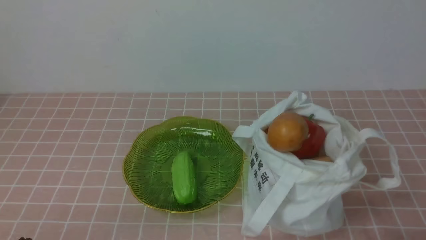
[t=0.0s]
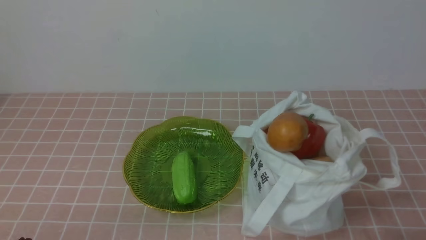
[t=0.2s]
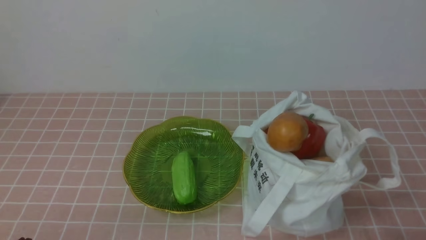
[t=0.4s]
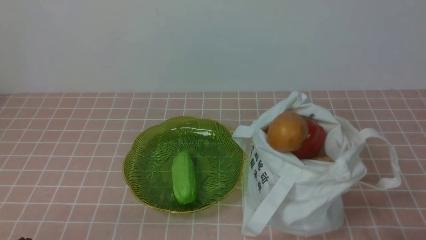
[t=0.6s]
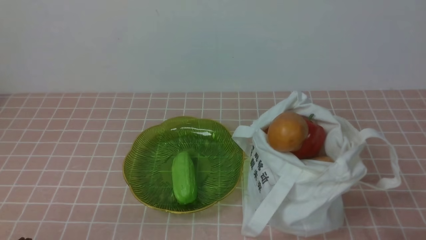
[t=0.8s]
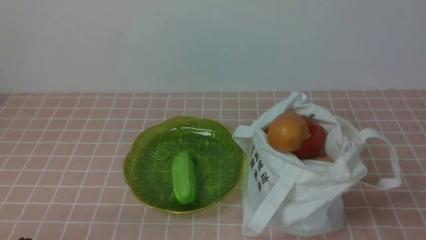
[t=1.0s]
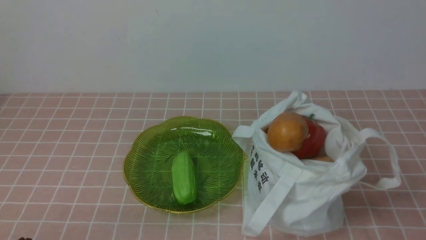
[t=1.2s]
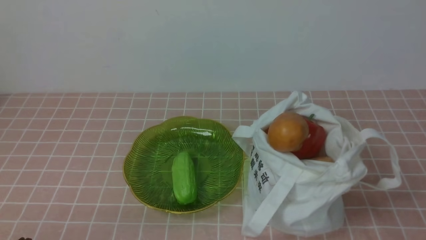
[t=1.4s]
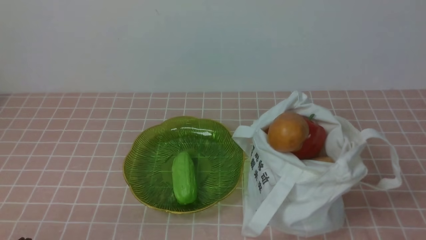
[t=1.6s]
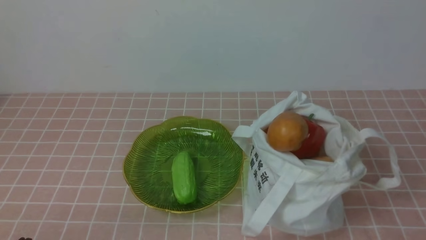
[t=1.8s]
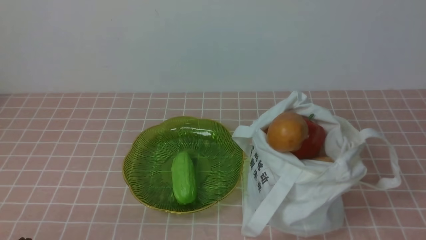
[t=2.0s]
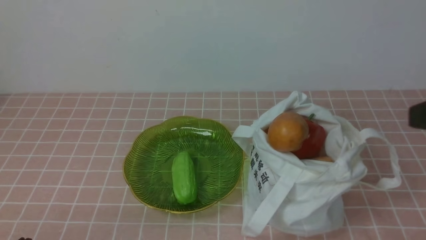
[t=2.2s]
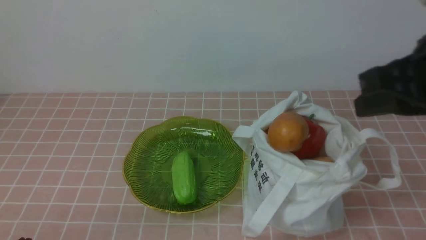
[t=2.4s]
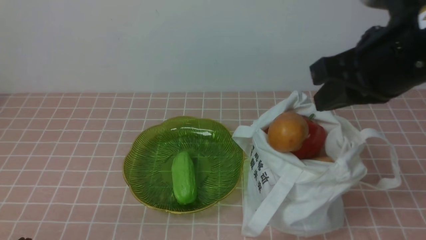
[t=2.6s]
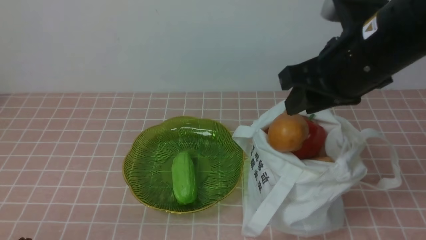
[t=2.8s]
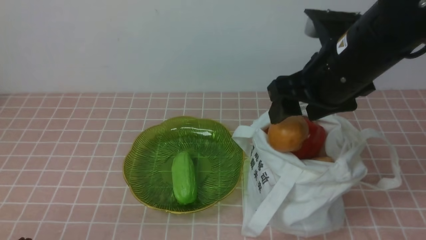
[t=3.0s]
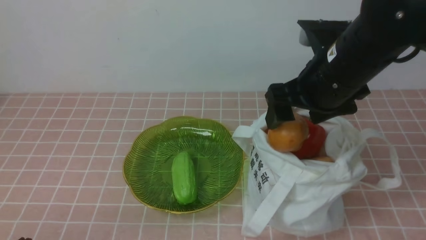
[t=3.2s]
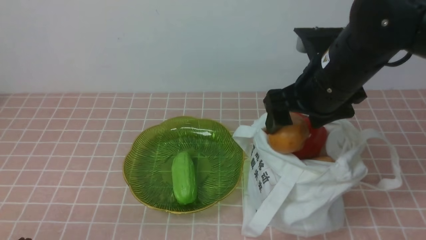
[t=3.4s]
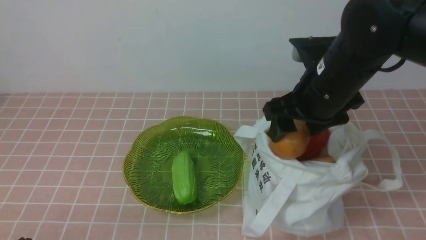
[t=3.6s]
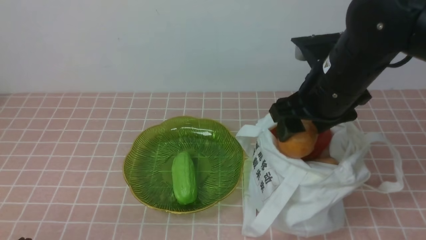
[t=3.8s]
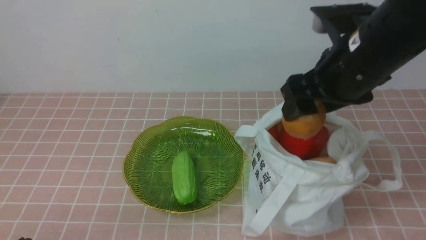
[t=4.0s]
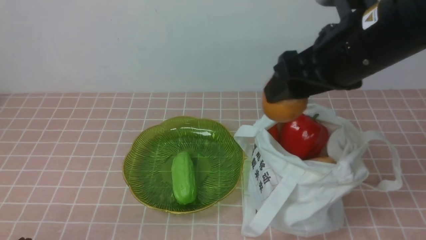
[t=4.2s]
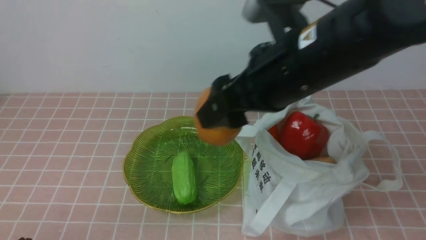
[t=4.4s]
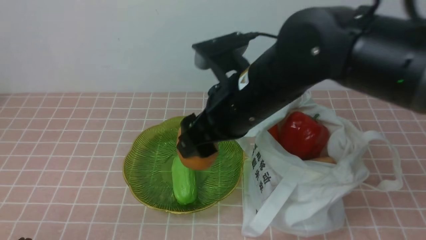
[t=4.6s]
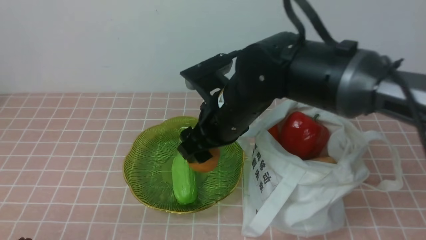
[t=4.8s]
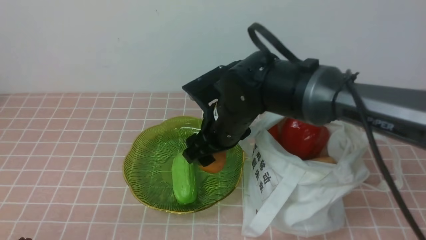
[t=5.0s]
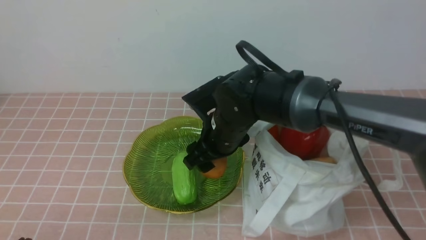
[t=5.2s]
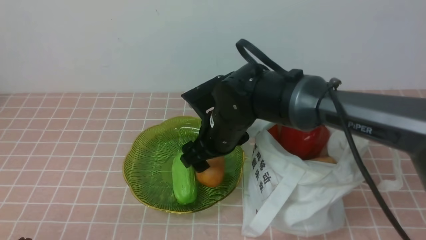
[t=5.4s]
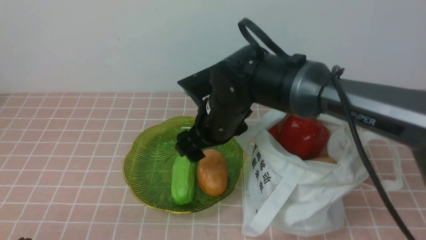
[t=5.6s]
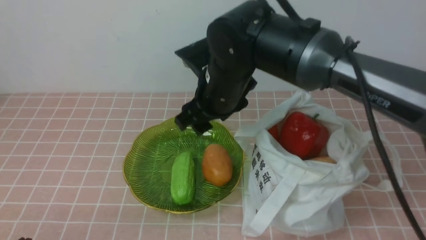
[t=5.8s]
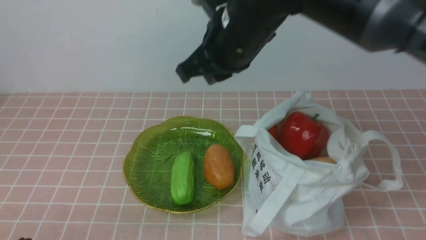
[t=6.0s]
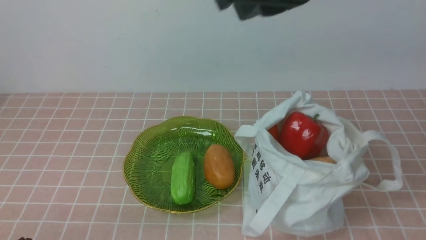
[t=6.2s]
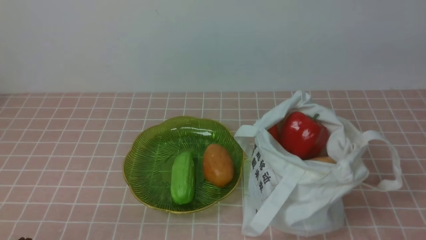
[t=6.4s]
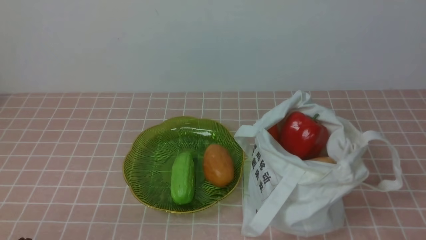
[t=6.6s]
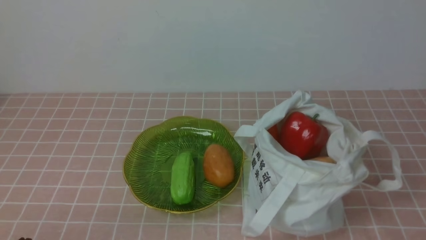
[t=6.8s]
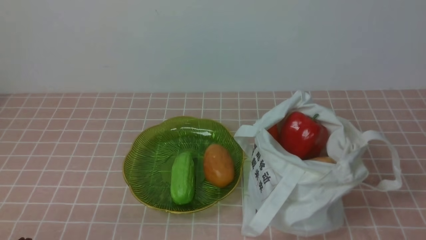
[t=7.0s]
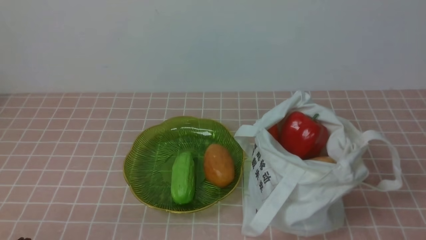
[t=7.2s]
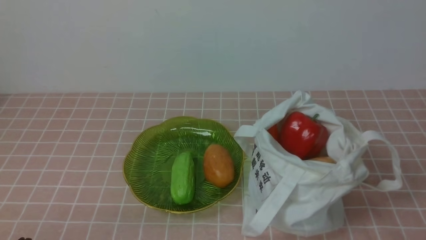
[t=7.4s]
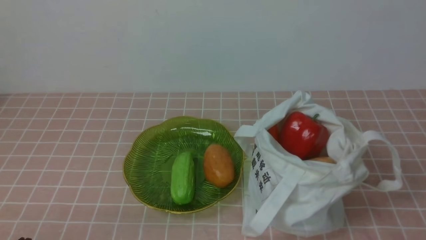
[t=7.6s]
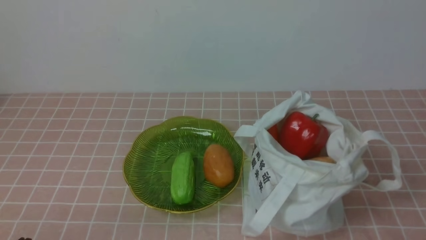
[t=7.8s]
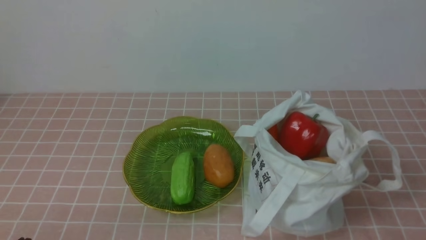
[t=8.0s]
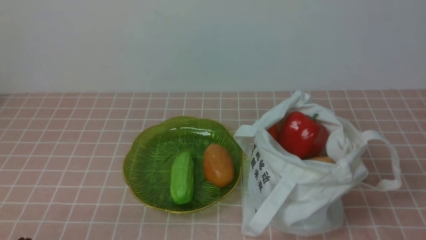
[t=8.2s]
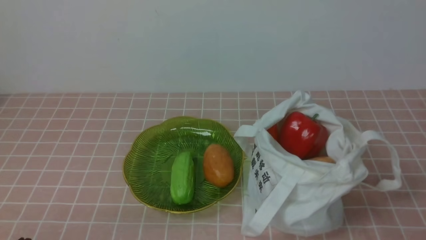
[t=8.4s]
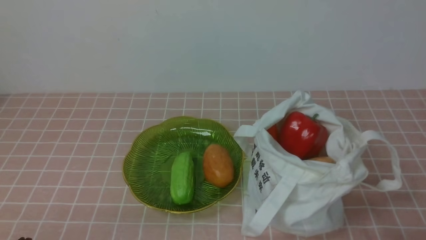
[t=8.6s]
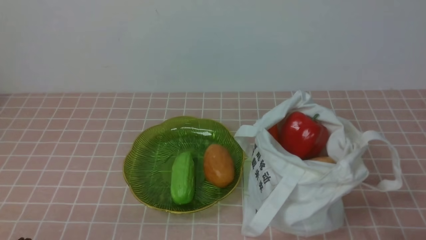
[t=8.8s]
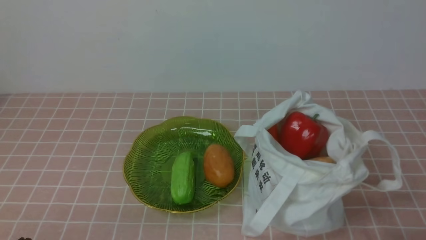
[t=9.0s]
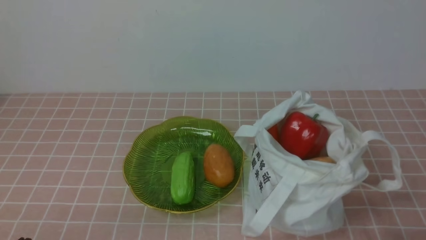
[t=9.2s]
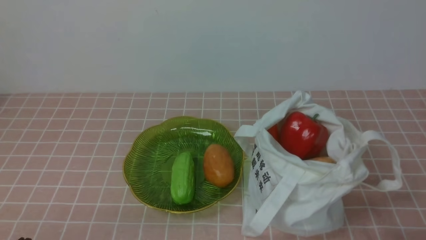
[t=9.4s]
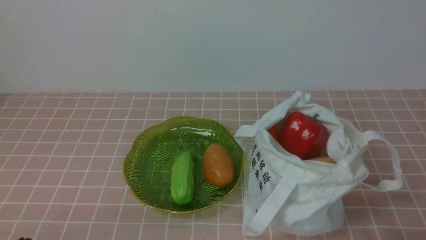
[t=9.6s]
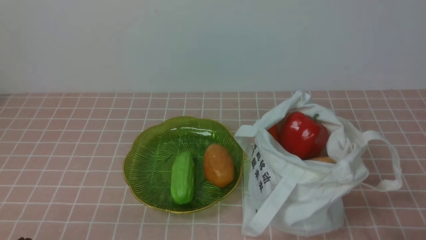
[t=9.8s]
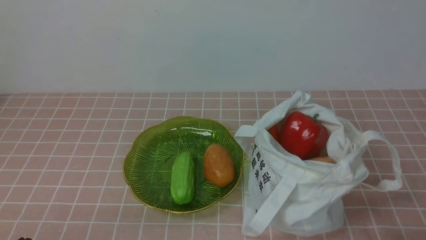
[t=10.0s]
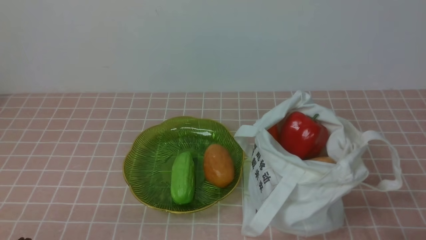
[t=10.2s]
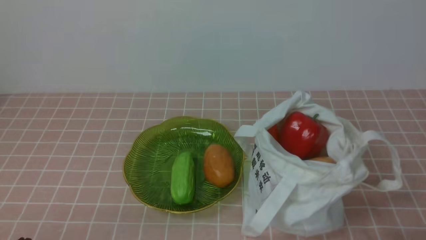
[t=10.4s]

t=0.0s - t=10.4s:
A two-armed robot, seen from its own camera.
Task of the whole recording: take vegetables from bag on pink coffee tablecloth place on plate.
Step, t=0.0s - t=3.6s: Grasp the potato with right gripper.
Step, t=4.0s - t=5.8s: Place the potato on the plate with right gripper.
t=1.4s - t=3.0s: The right gripper heads forward, to the left and upward, covering roughly 30 cm, and opens its fingers.
t=3.0s - t=4.4s: The right gripper shifts roughly 5 cm to the left.
t=4.4s - t=6.0s: The right gripper reaches roughly 15 cm downward, then returns, and closes its fingers.
t=6.0s - t=7.4s: The right gripper shifts about 35 cm backward and to the right.
t=9.0s - t=10.4s: The two grippers keep their place.
